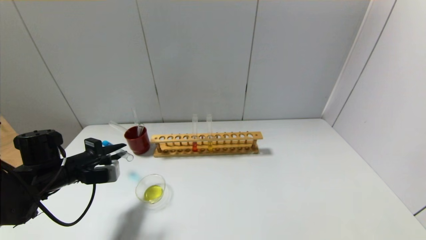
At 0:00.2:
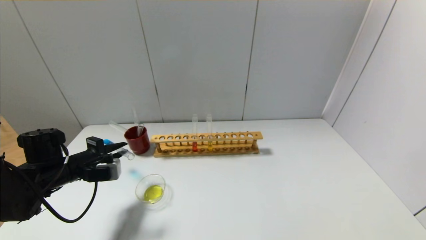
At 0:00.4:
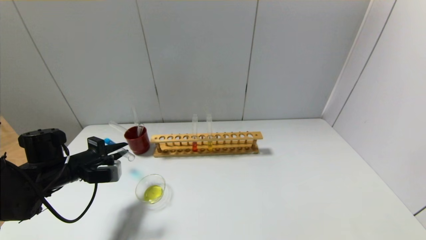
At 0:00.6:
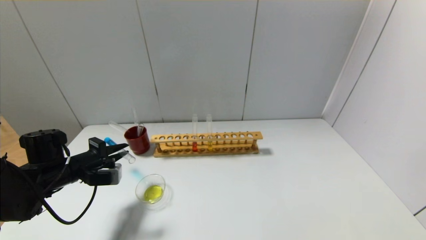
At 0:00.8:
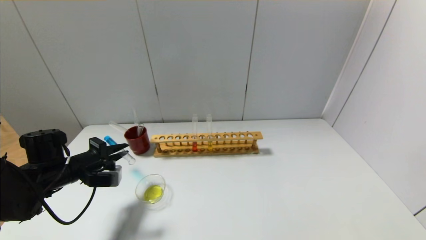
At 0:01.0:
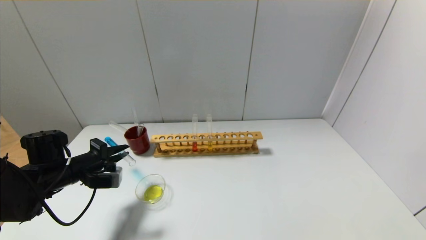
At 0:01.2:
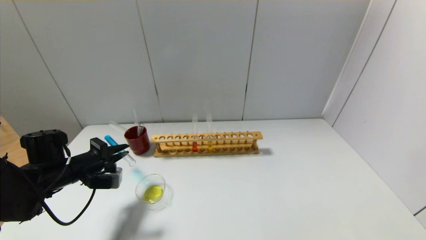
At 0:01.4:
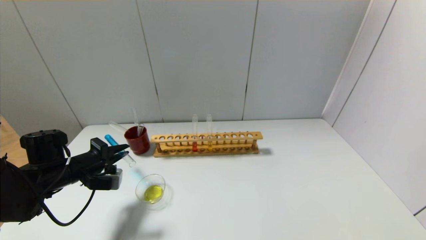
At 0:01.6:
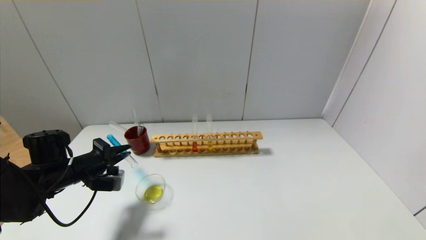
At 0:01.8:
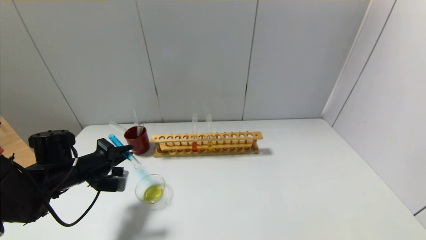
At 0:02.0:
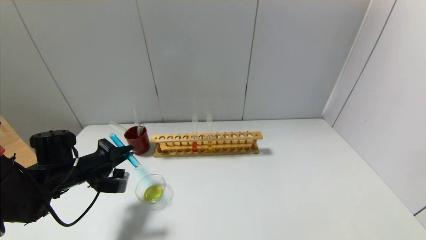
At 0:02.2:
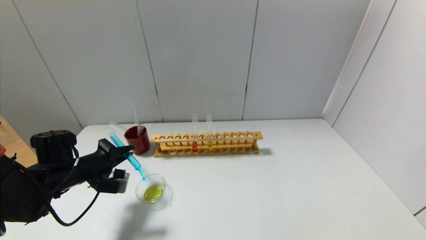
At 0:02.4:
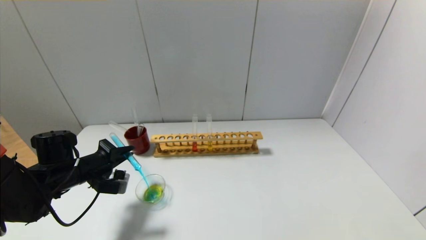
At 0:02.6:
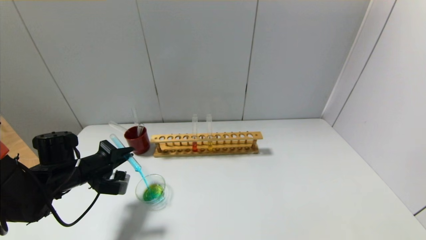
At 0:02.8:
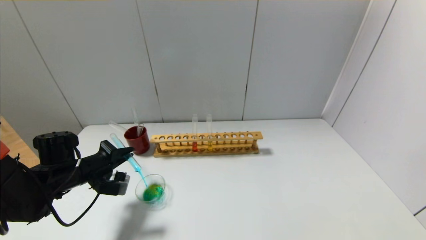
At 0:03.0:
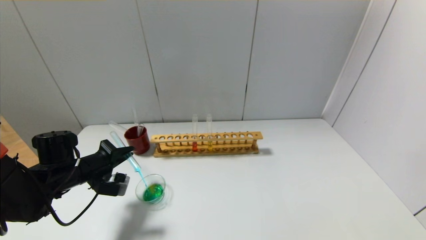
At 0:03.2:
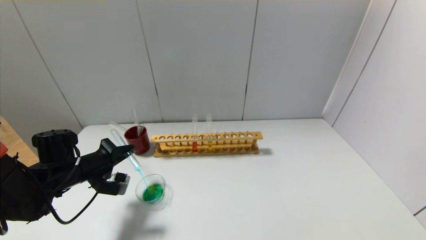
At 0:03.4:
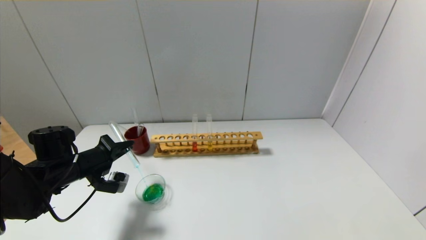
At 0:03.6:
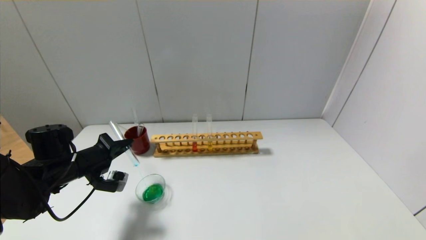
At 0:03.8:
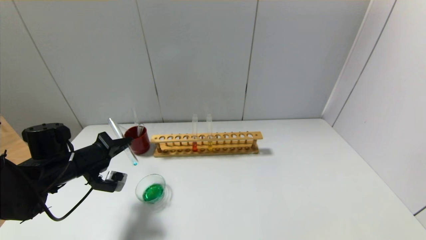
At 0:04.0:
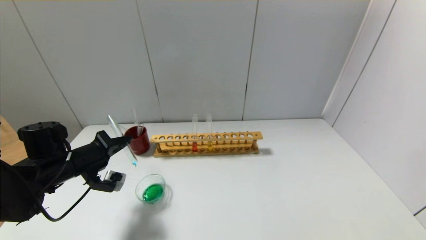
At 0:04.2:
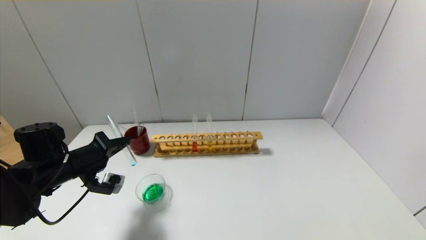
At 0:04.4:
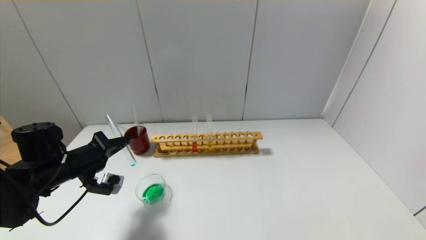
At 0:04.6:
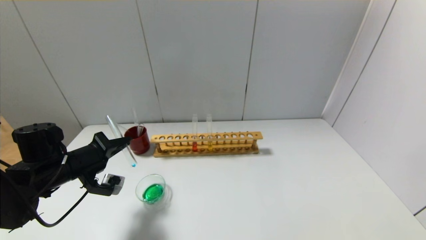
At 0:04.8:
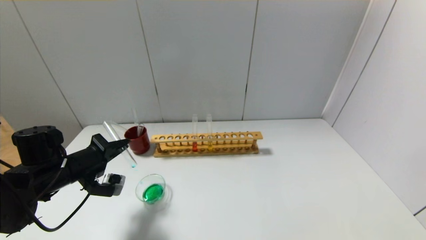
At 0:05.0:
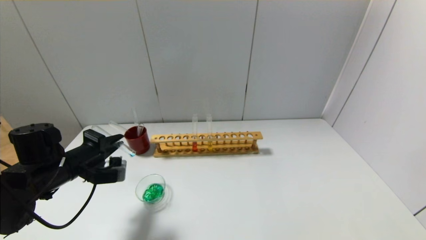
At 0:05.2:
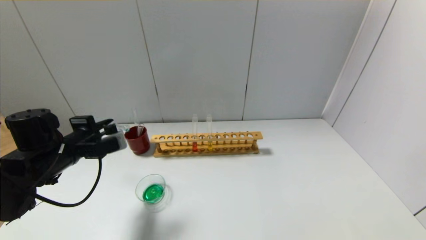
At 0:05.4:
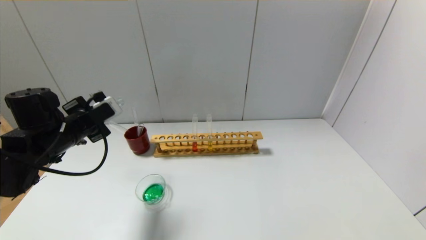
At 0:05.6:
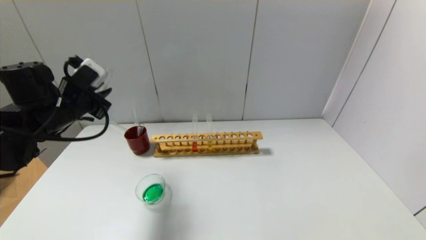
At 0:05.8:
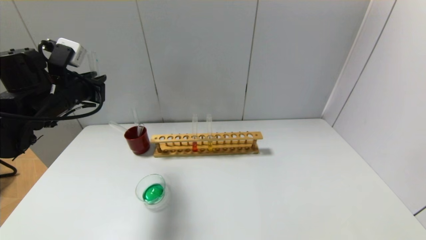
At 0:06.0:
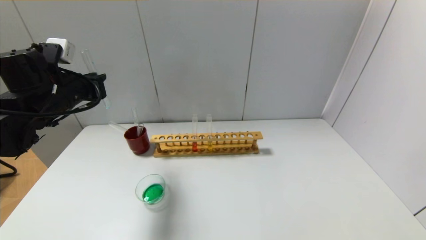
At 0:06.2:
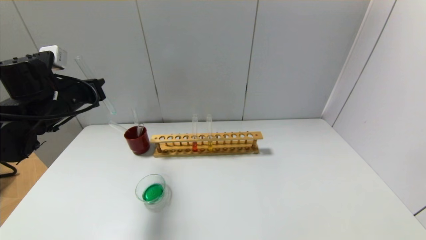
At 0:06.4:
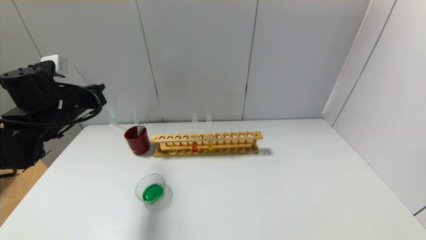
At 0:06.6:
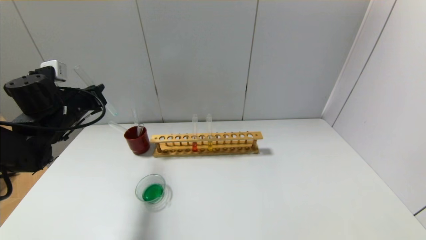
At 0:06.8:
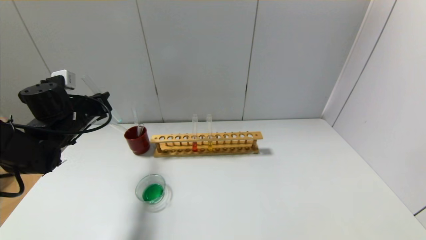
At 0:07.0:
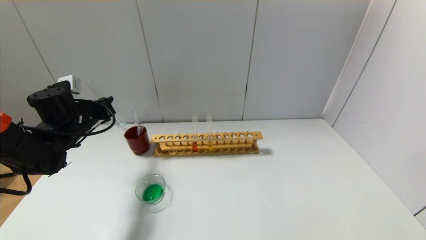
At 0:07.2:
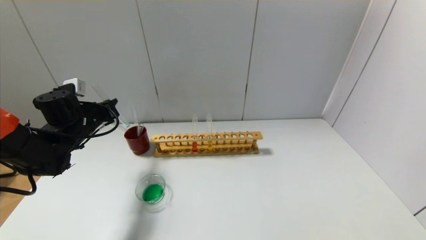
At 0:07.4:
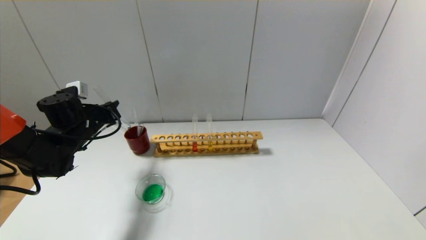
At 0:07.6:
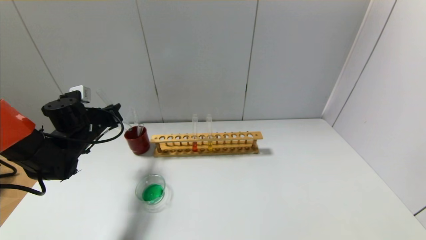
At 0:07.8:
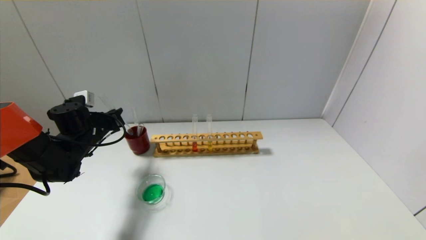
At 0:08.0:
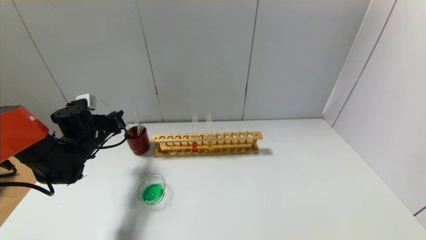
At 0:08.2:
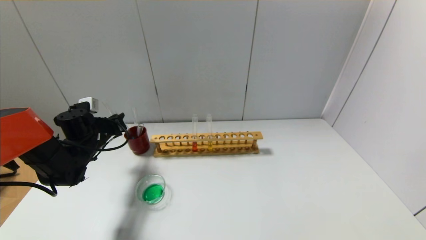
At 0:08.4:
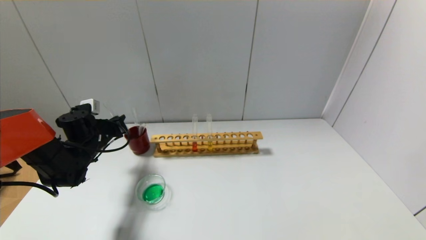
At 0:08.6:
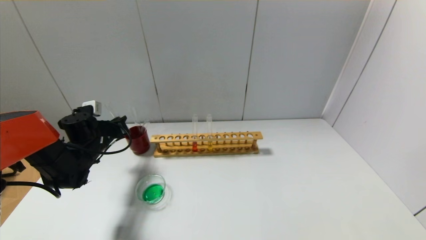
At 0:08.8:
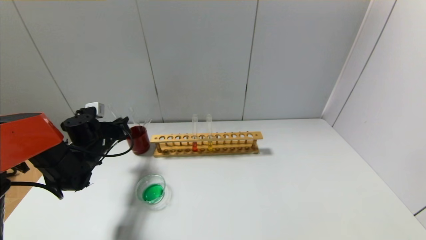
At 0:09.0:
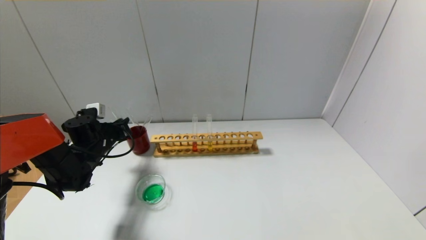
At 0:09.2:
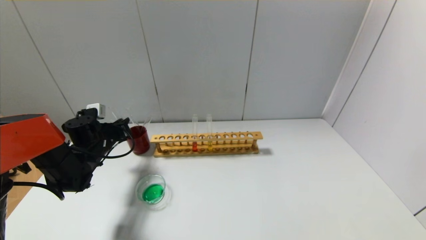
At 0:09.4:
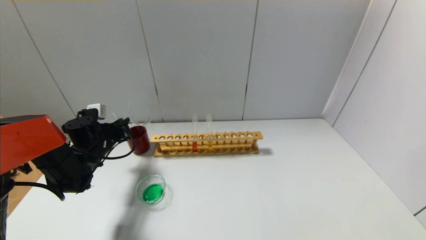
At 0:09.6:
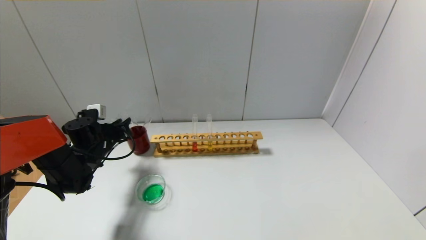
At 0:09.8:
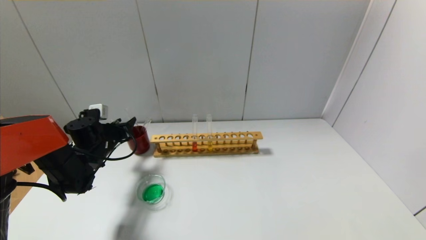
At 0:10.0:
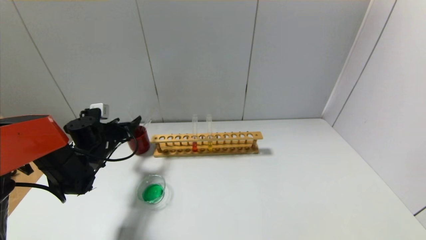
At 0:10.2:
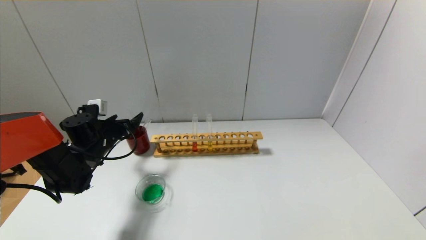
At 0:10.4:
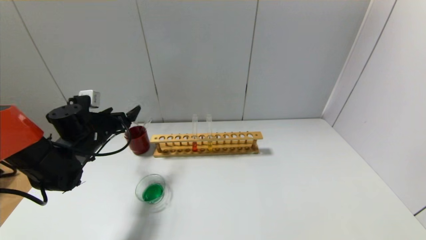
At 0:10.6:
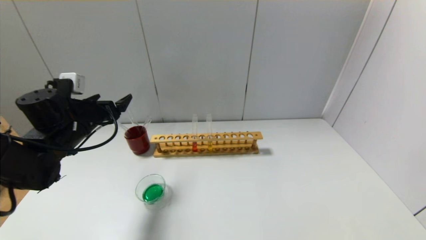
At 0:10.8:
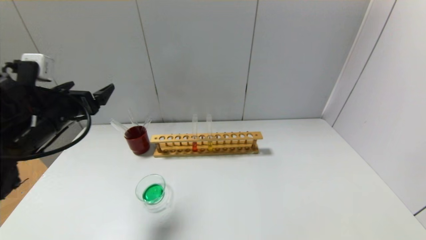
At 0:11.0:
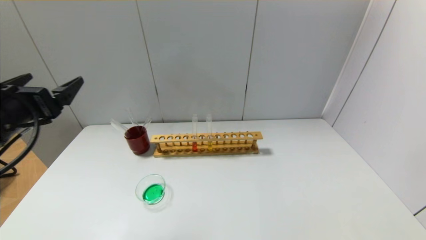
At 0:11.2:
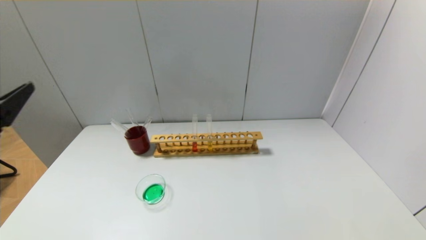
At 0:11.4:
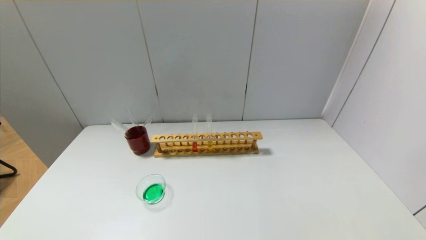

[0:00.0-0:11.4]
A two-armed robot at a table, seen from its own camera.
Step, 0:00.0 to 0:04.8: Pour the blue reagent into the graduated cylinder with the left gripper.
Step, 0:05.0 to 0:10.0: Place the test tube into the brown cup with the left gripper.
0:00.0 to 0:01.4: There are only small adjustments of the grippers.
0:01.4 to 0:02.8: The grippers move only a little.
0:02.8 to 0:04.2: The grippers make only small movements.
0:04.2 to 0:05.6: The left gripper travels upward by approximately 10 cm.
0:05.6 to 0:07.2: The left gripper heads downward and forward, covering some 10 cm.
0:07.2 to 0:08.6: The left gripper goes about 5 cm downward.
0:08.6 to 0:10.0: The left gripper opens its fingers.
0:10.0 to 0:11.4: The left gripper heads backward and upward, covering about 40 cm.
